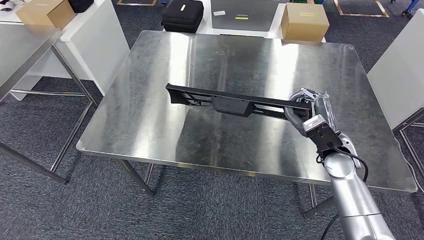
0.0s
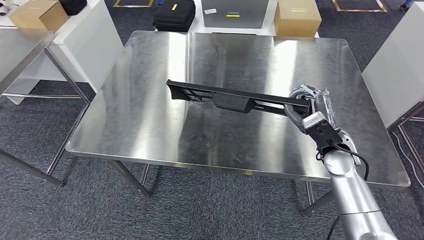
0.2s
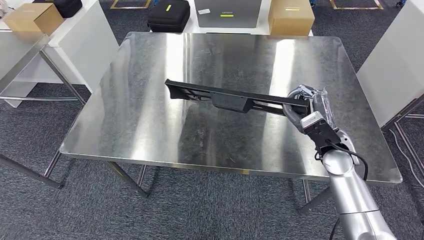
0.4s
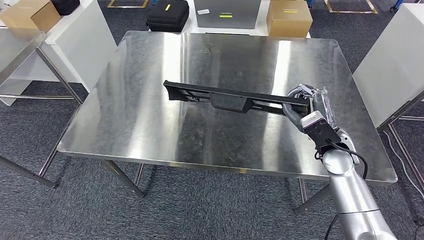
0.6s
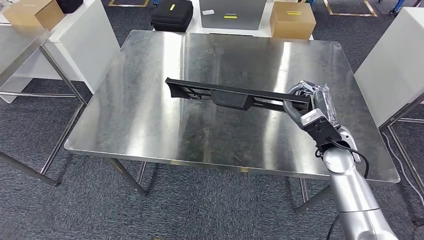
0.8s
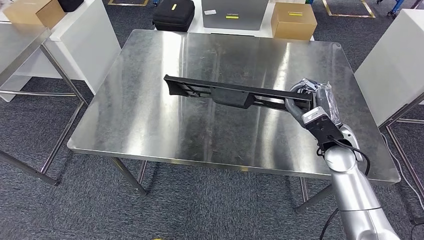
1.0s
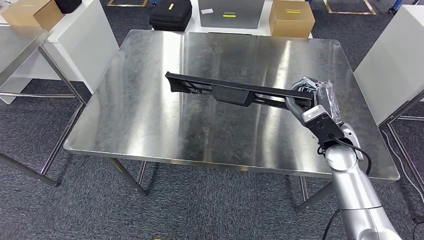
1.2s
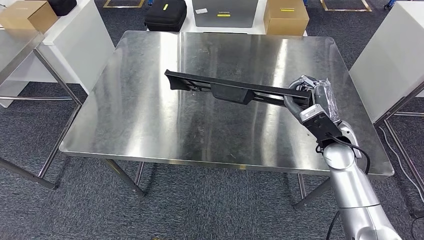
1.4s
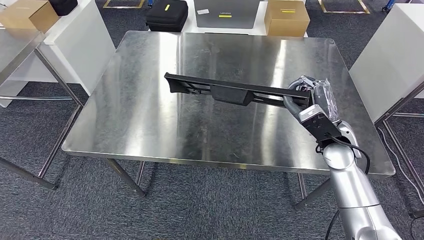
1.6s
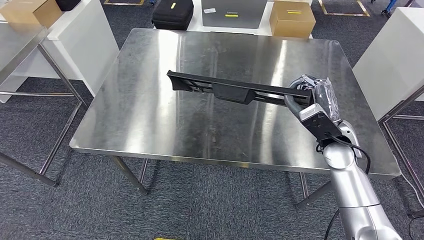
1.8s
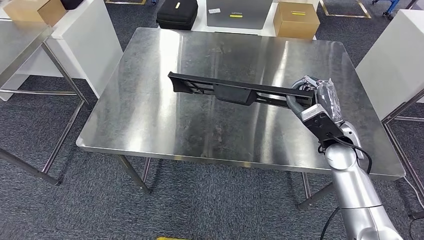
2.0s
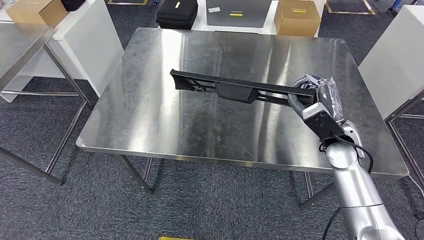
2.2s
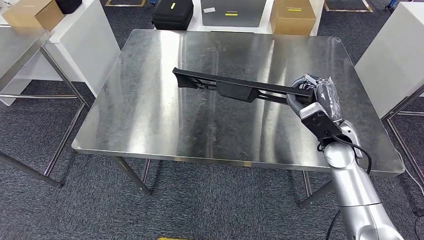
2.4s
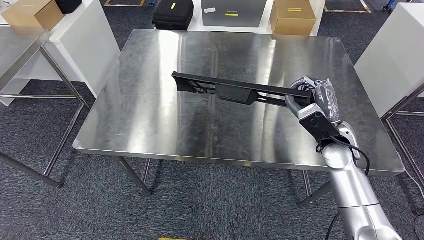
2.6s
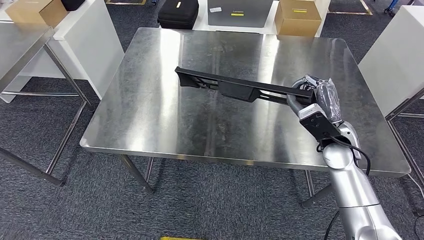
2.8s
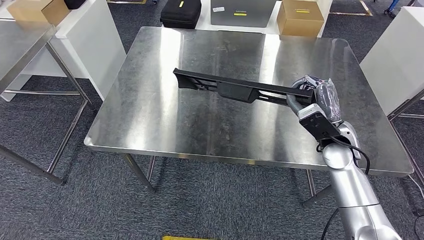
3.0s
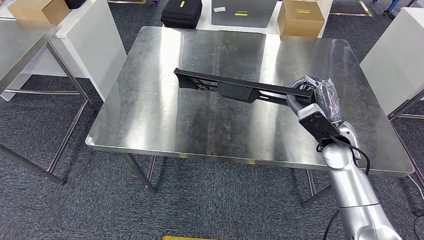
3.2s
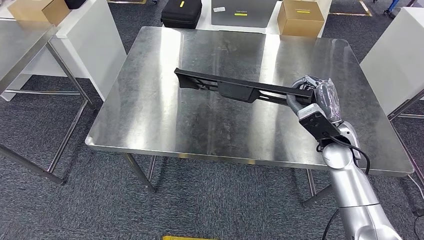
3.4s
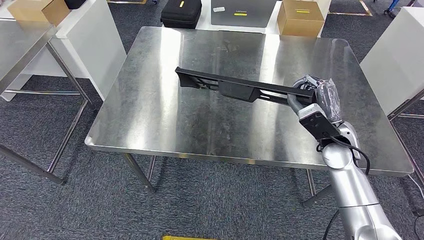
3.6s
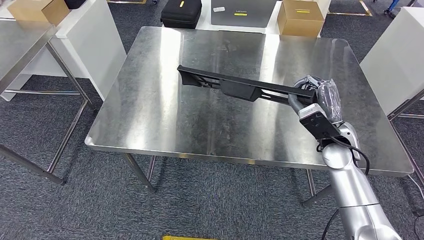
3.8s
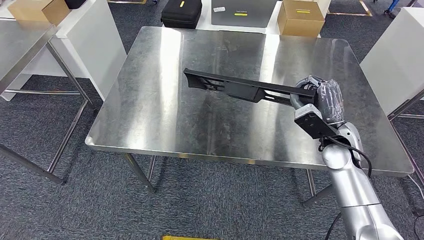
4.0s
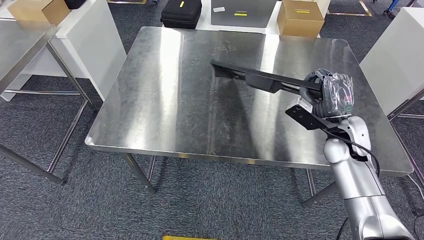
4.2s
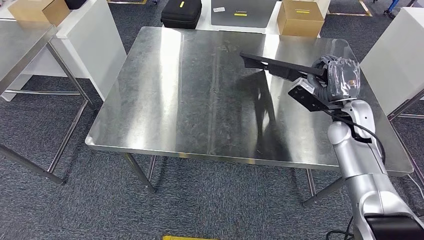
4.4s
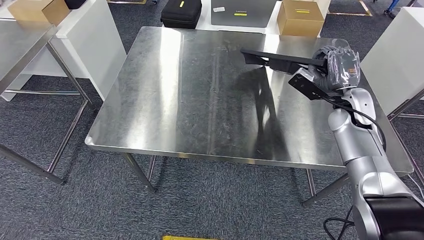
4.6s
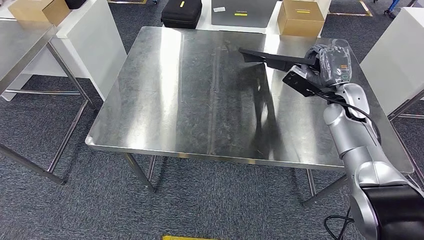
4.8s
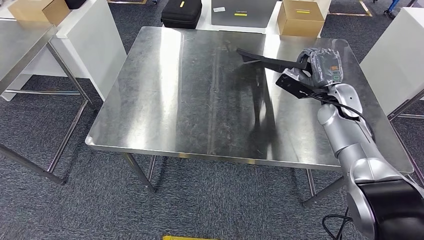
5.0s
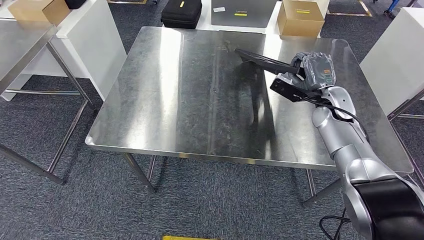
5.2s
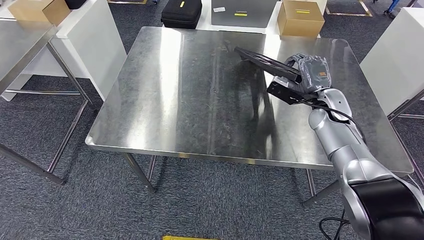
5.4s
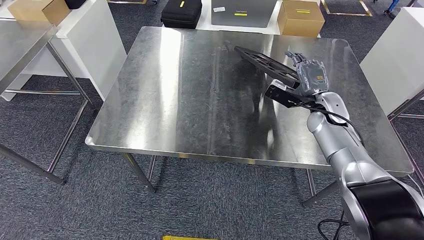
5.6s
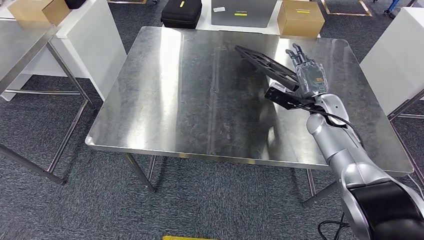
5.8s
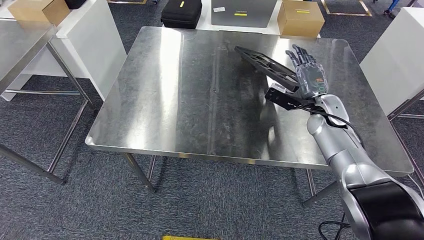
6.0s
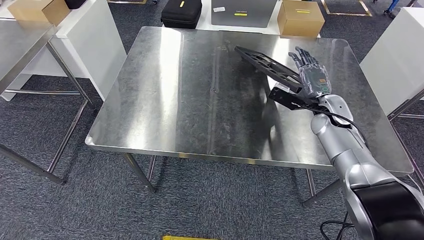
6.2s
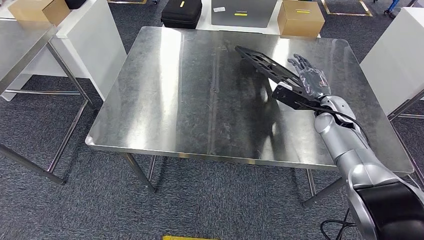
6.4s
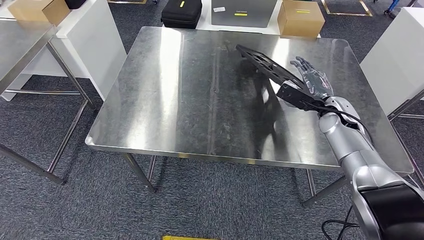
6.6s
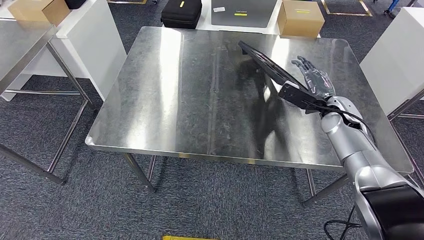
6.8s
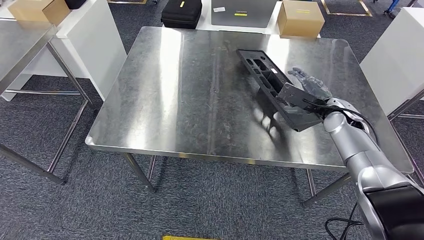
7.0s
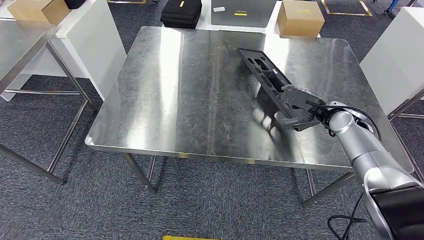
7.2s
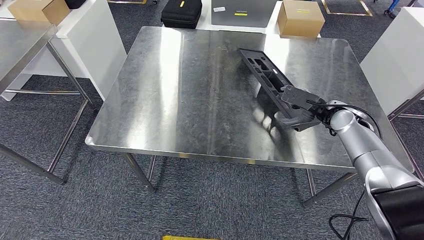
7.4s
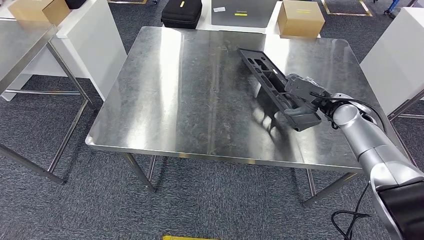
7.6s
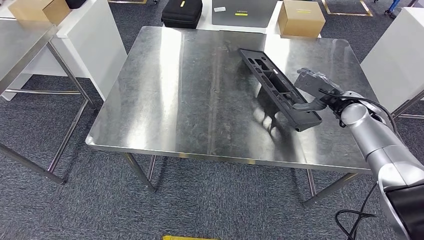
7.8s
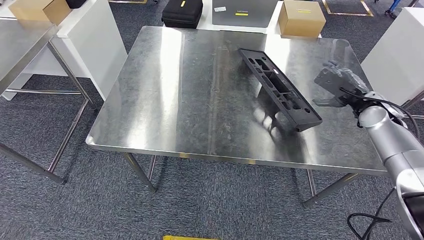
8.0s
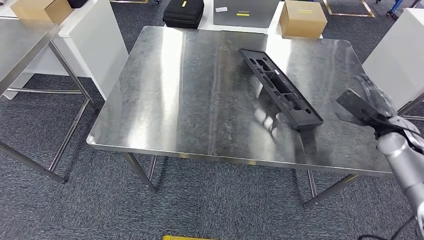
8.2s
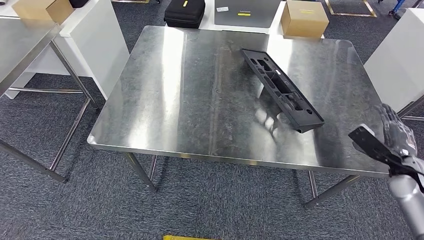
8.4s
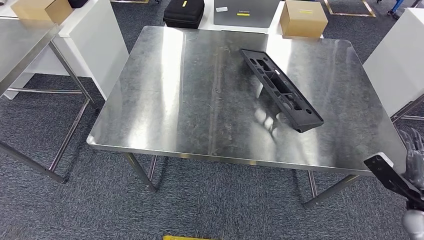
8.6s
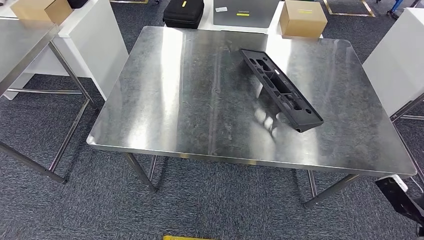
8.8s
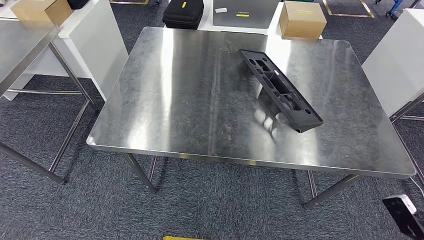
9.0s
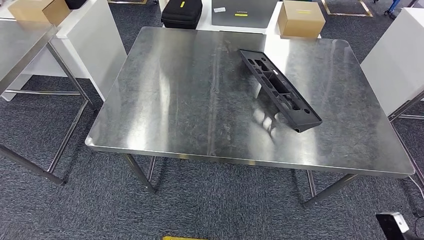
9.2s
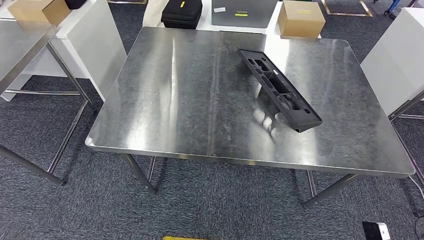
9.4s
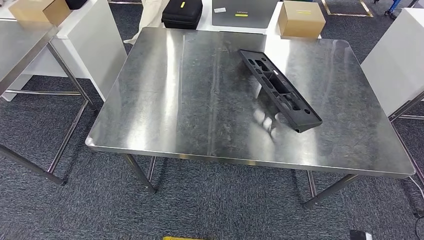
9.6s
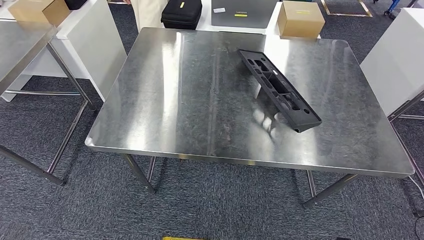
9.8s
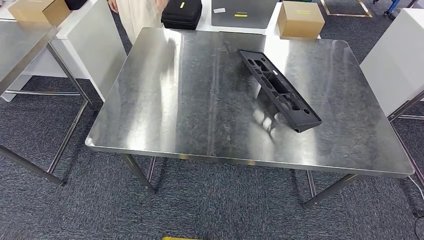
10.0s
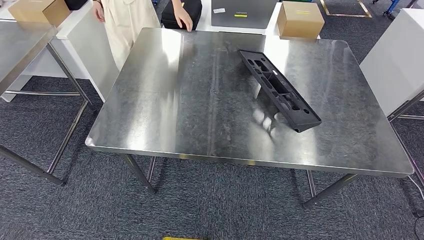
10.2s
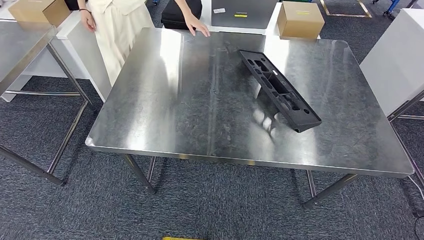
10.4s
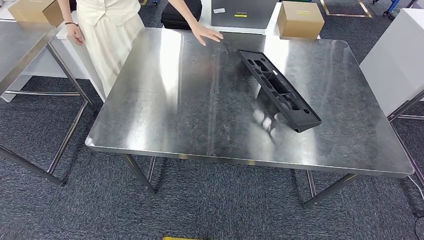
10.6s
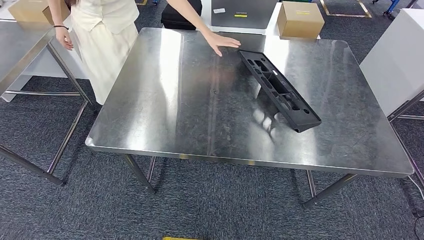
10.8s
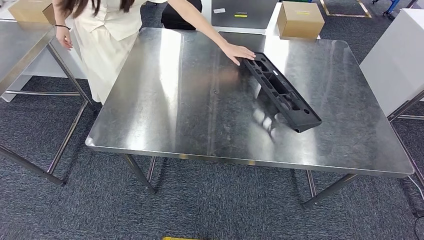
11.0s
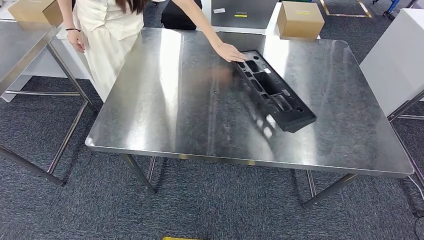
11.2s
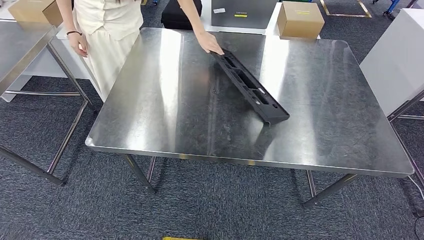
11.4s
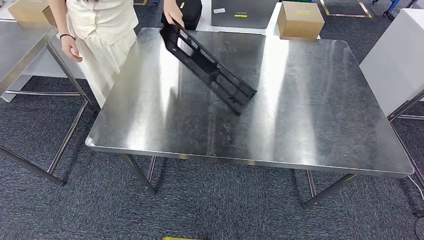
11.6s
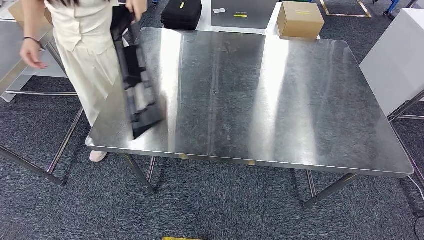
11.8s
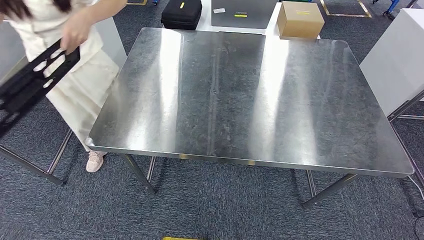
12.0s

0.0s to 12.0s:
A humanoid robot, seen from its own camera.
Step, 0.0s to 8.0s: Insert the large material into the corresponding slot on the workbench.
3.0s to 4.4s: The right hand ends up about 5 cm from where it was.
4.4s to 6.0s: The right hand moves approximately 5 cm.
7.6s to 9.0s: The right hand is displaced backward and downward by some 35 cm.
9.0s to 10.4s: The right hand shifts approximately 35 cm to the left and downward.

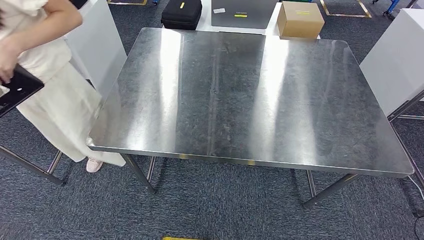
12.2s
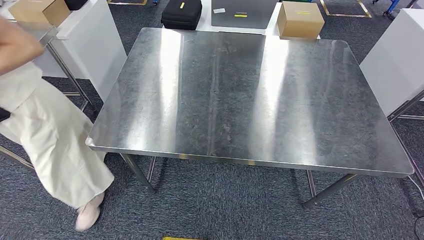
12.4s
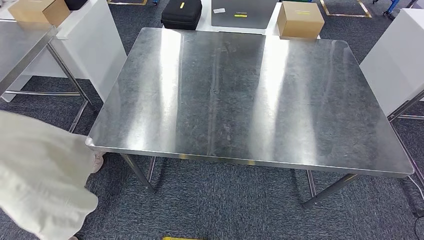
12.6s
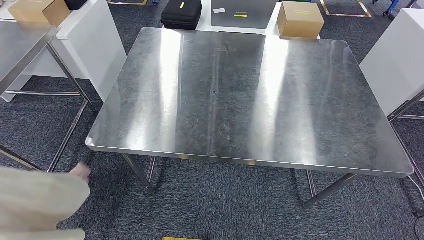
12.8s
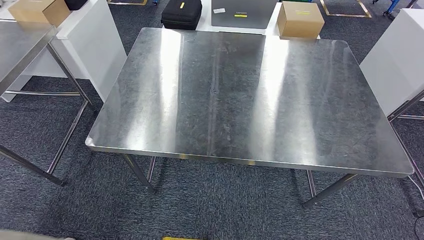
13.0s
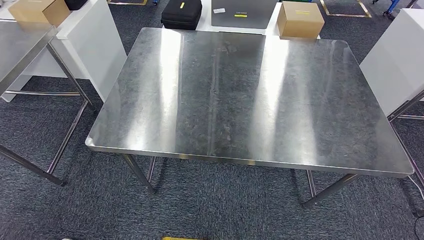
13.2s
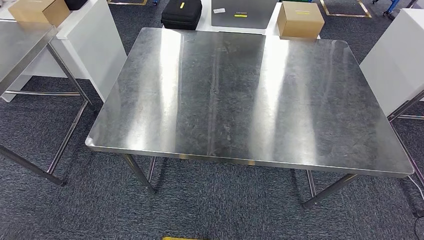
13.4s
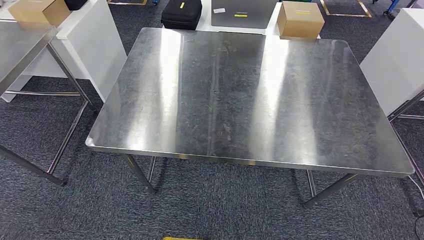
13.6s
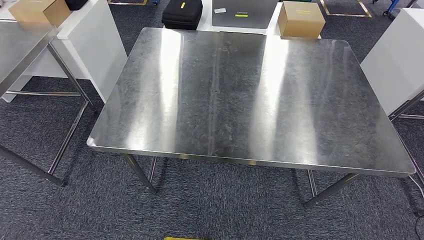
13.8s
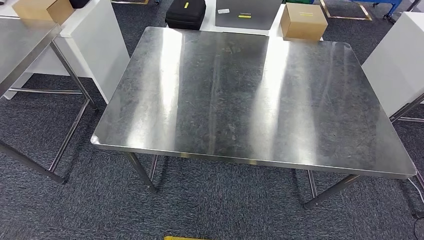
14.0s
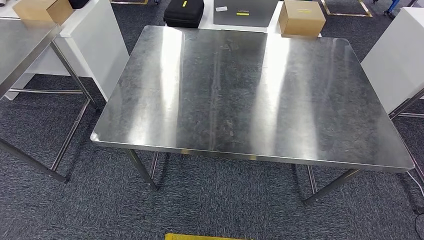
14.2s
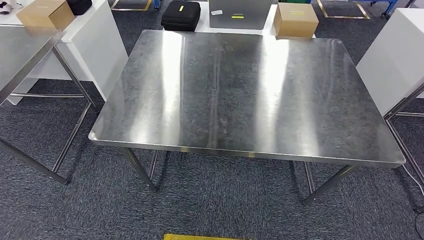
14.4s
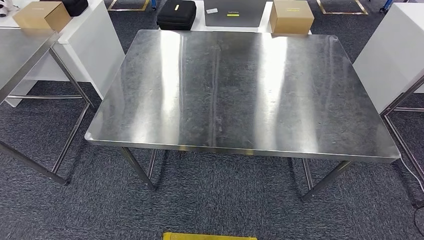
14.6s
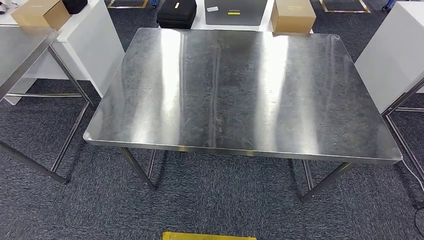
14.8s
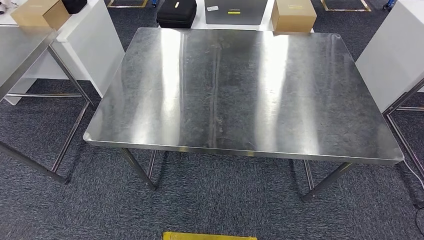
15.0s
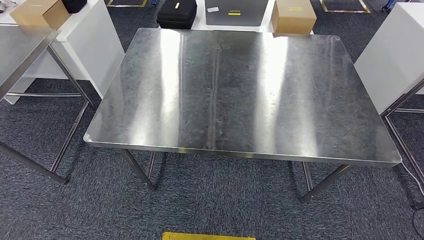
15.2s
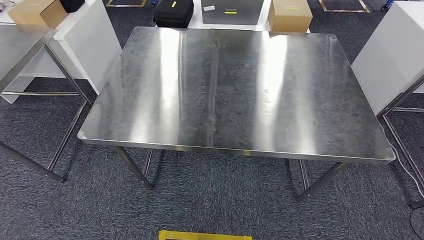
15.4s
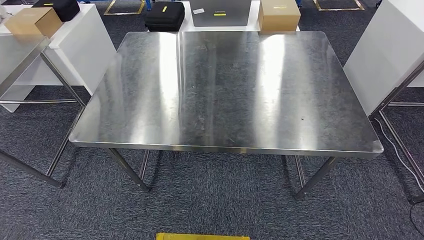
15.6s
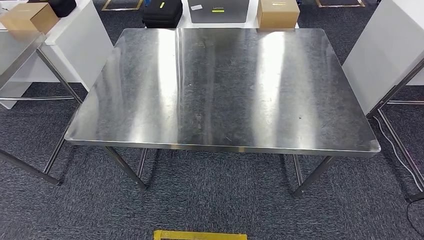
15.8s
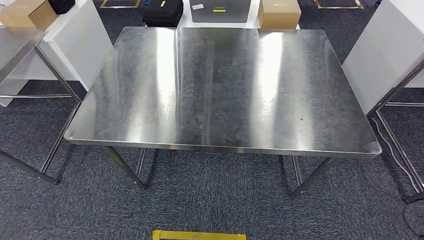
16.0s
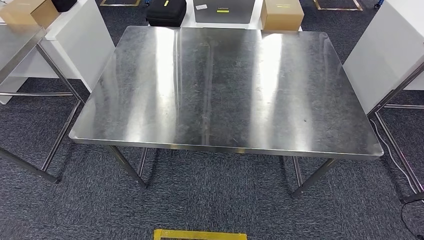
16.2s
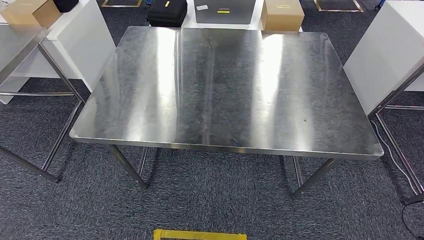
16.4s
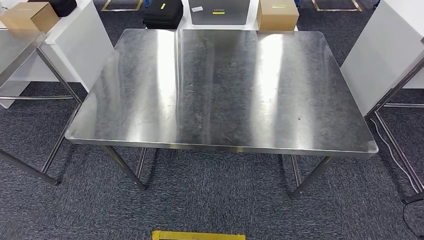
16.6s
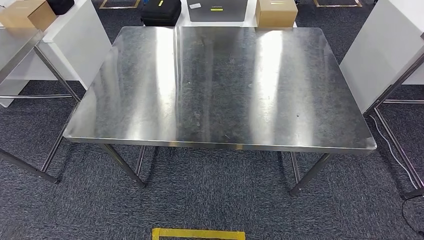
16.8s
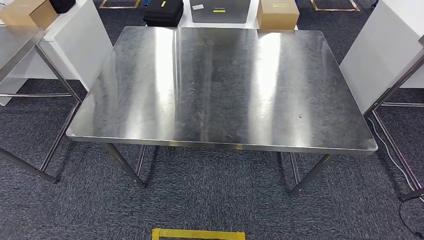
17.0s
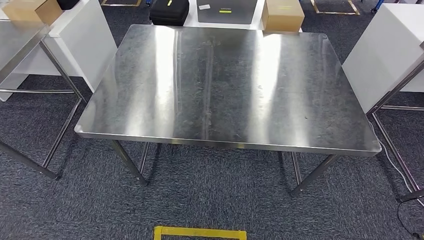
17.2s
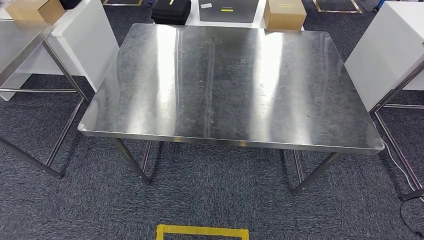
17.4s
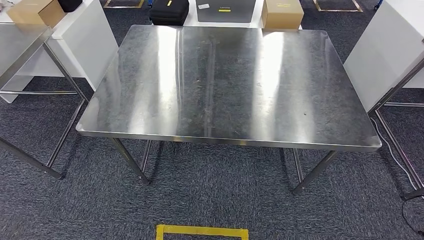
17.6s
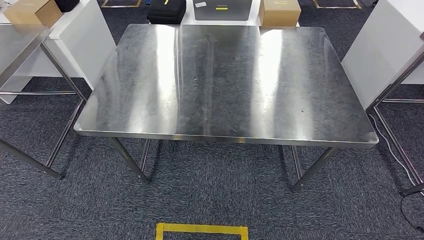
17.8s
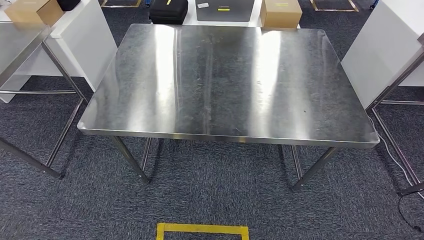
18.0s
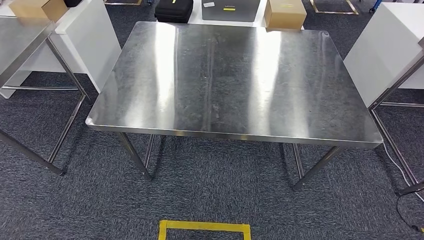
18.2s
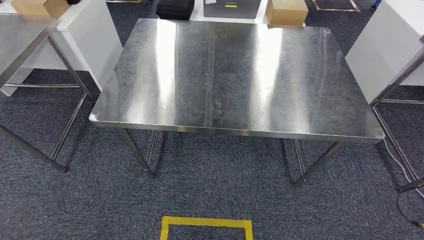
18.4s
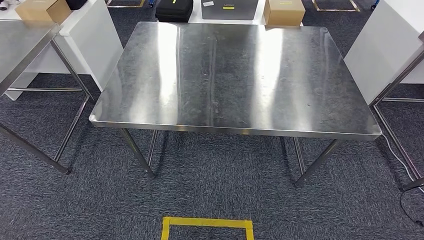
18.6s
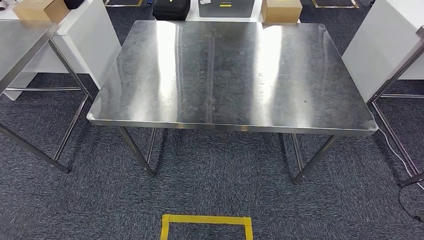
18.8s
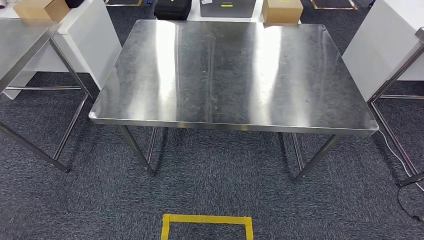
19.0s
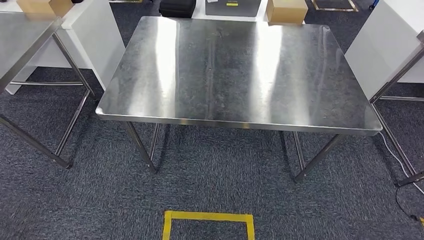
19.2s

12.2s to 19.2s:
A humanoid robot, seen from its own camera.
12.2s to 15.0s: The two hands keep their place.
16.4s to 17.8s: Both hands stay about where they are.
